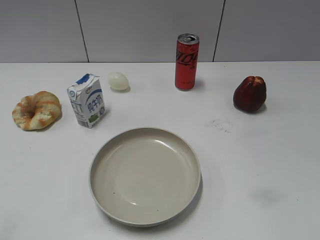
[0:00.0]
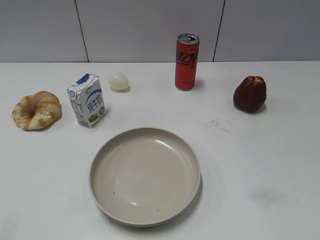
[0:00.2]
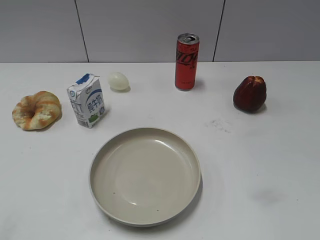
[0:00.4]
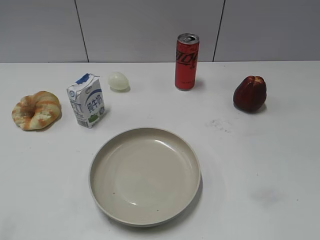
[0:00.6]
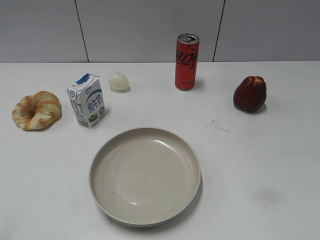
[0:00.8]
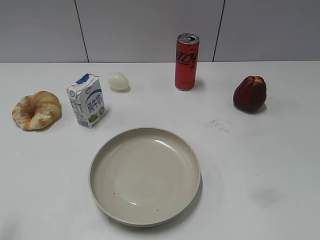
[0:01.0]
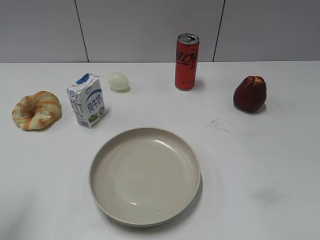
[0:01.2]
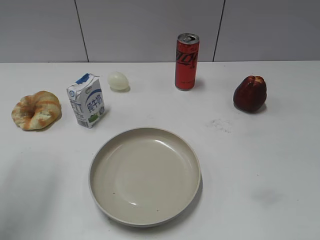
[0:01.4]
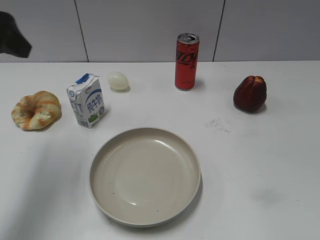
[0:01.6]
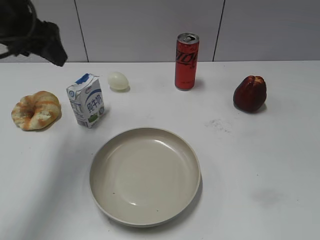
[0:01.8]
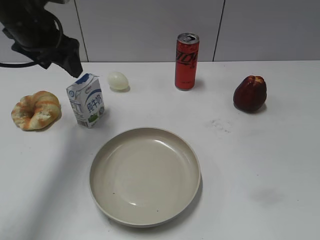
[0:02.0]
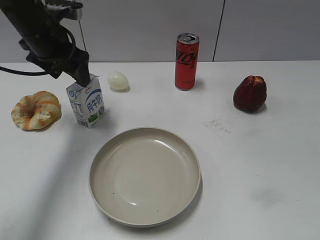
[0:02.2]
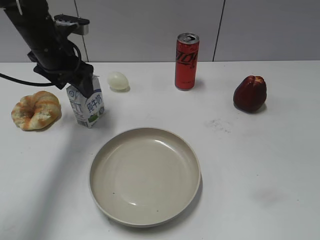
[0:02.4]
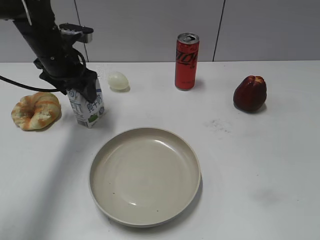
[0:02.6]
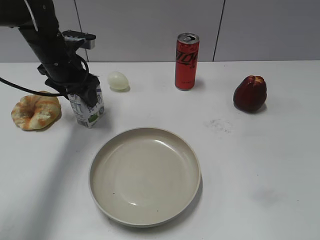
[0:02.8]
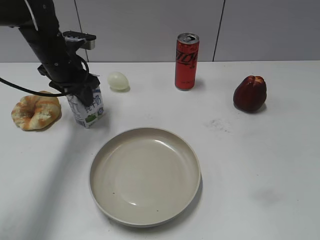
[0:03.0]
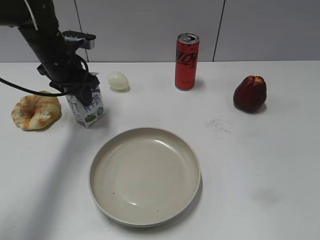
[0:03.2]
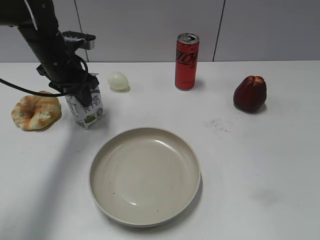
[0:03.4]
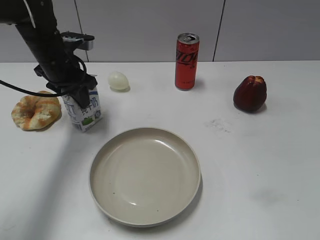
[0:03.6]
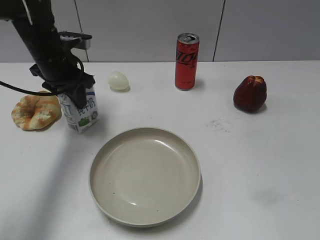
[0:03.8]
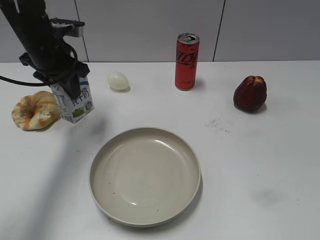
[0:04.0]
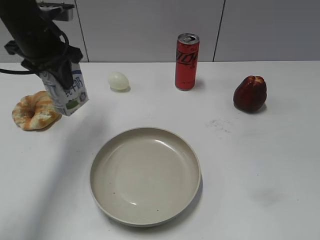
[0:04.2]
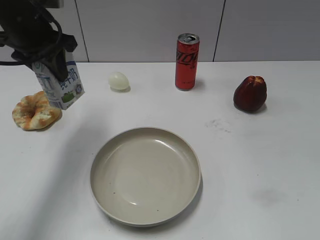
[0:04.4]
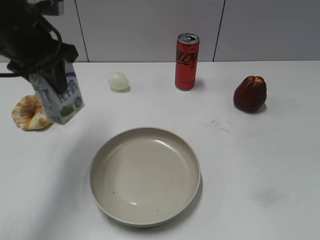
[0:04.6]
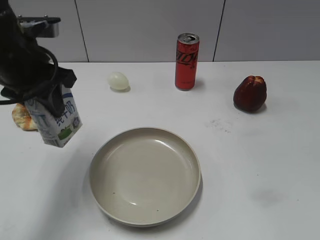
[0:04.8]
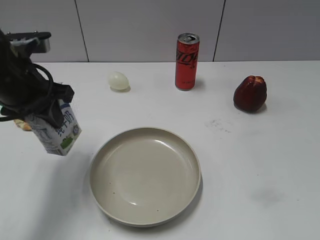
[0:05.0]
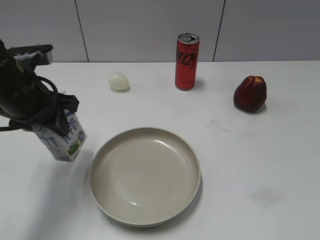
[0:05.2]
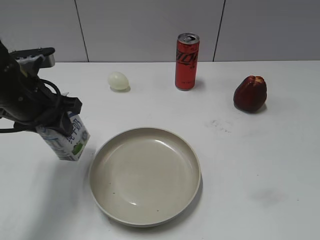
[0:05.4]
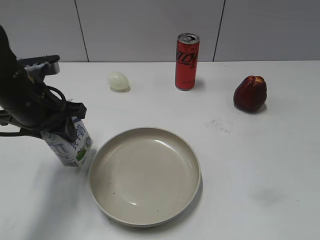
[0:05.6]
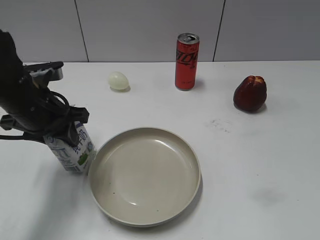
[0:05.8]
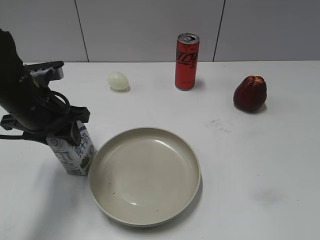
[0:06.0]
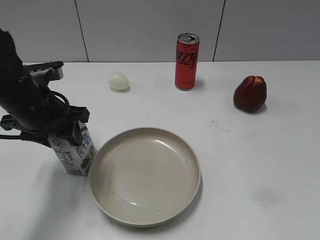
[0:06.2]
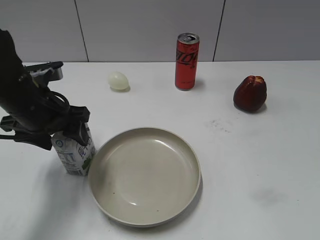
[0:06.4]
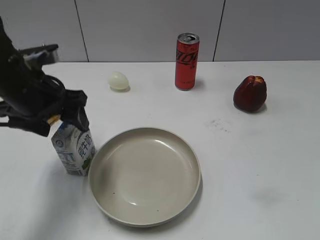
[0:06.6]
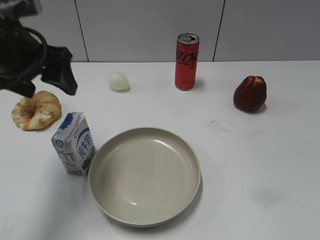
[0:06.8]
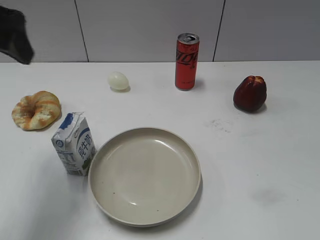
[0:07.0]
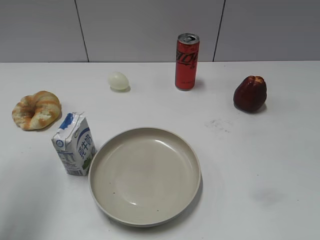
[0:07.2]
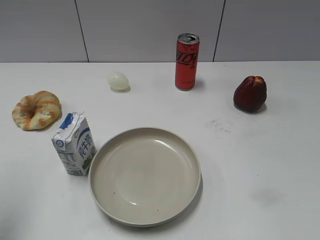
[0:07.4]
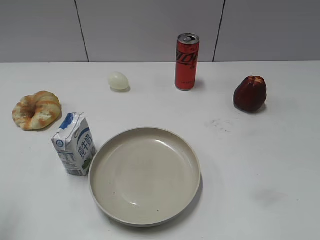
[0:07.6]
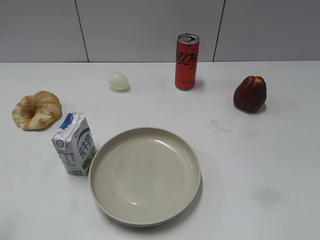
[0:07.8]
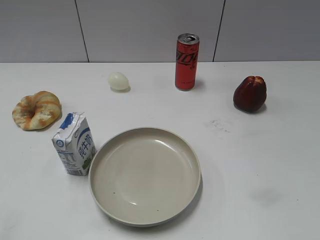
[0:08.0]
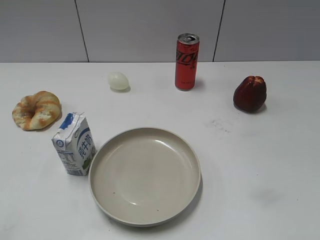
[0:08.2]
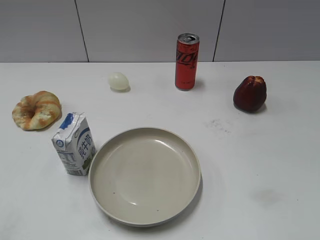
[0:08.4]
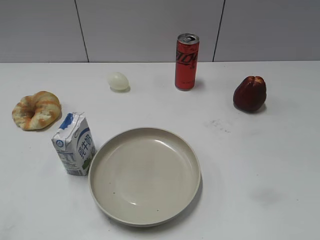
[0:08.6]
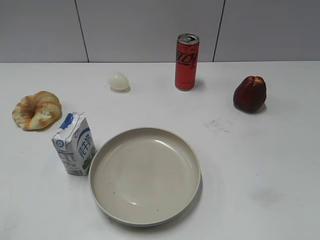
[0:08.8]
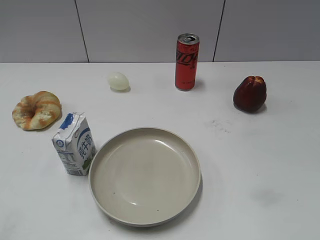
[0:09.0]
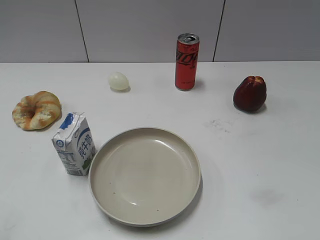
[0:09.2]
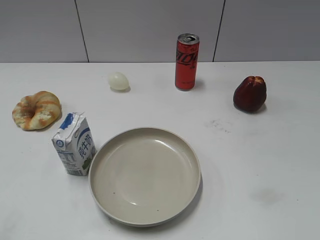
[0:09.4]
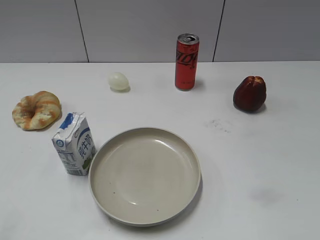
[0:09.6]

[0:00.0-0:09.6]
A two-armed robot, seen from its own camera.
Step, 0:00.6 to 0:03.4: Grasp the milk with left gripper.
Step, 0:03.6 to 0:06.6: Place the milk on the table with left gripper.
0:01.6 to 0:03.2: The left gripper goes approximately 25 cm forward, downward and to the right, and closes.
0:03.2 to 0:04.8: The left gripper travels backward and upward by roughly 15 cm.
0:04.8 to 0:06.4: The left gripper heads downward, covering roughly 10 cm, and opens its fingers.
0:06.4 to 0:08.0: The left gripper goes about 30 cm backward, to the left and upward.

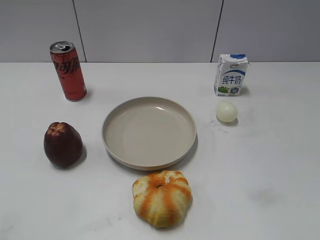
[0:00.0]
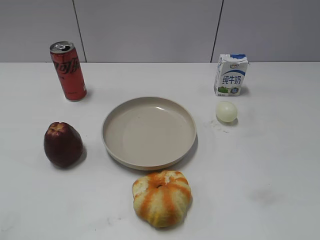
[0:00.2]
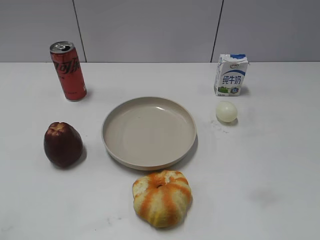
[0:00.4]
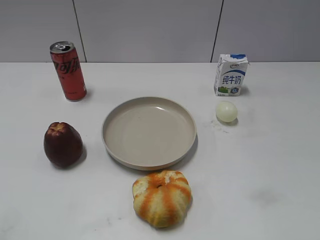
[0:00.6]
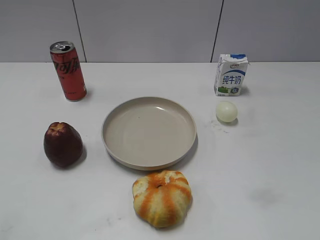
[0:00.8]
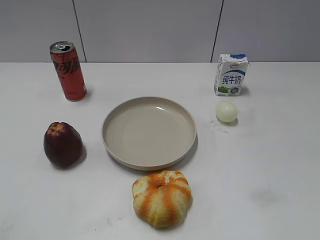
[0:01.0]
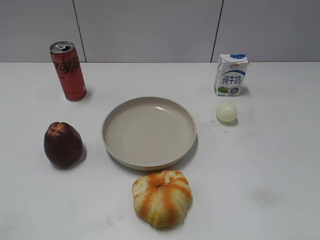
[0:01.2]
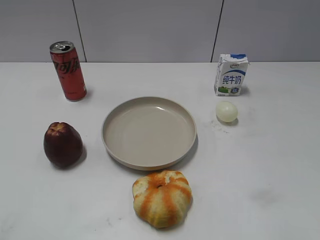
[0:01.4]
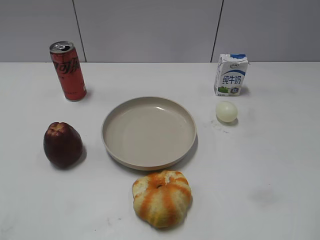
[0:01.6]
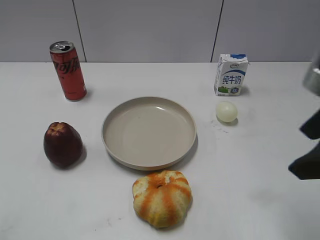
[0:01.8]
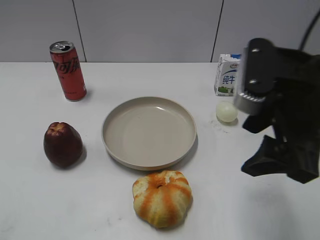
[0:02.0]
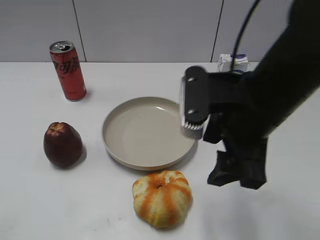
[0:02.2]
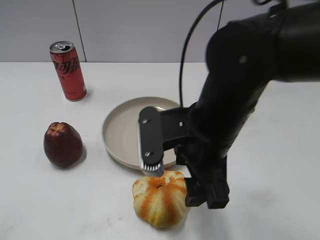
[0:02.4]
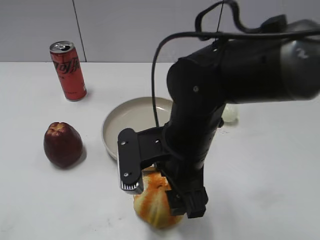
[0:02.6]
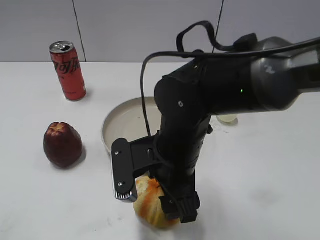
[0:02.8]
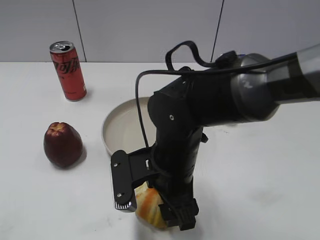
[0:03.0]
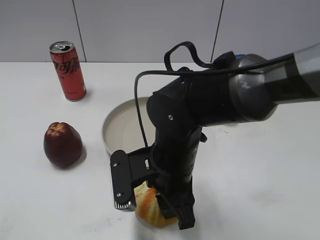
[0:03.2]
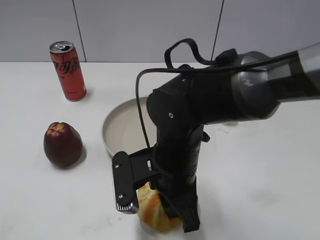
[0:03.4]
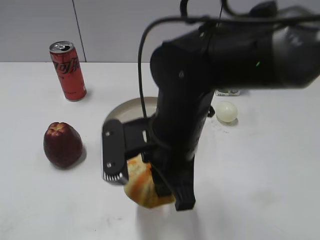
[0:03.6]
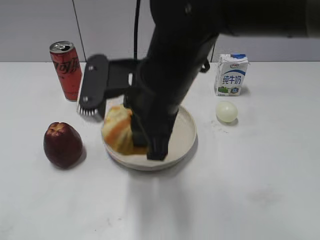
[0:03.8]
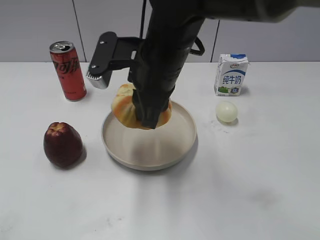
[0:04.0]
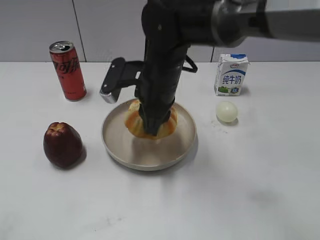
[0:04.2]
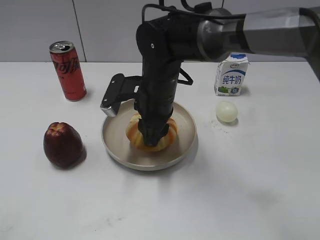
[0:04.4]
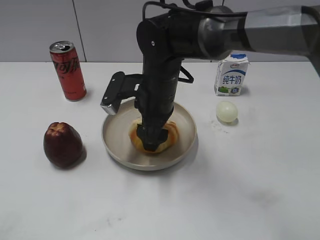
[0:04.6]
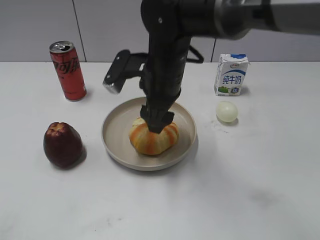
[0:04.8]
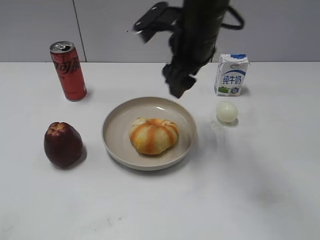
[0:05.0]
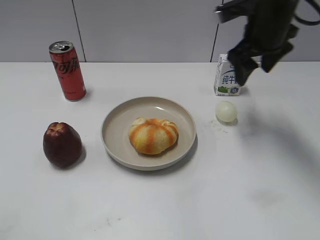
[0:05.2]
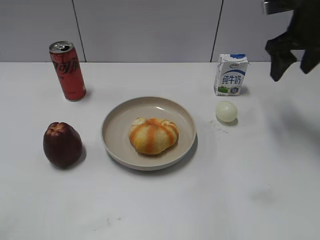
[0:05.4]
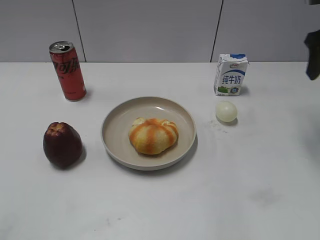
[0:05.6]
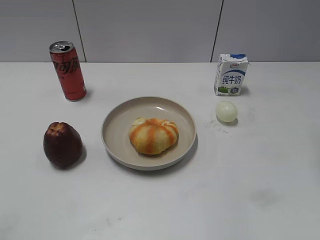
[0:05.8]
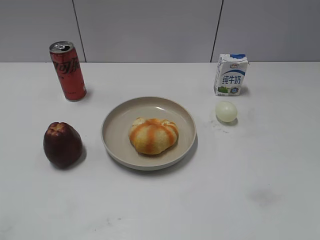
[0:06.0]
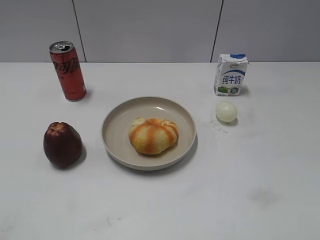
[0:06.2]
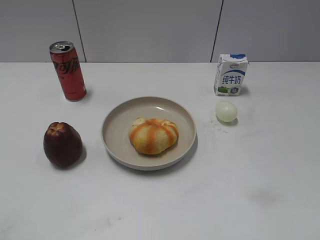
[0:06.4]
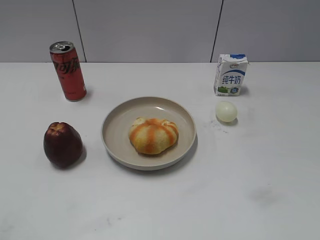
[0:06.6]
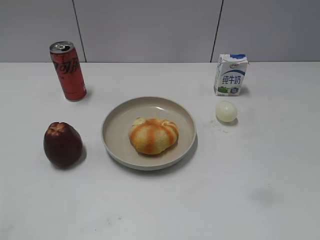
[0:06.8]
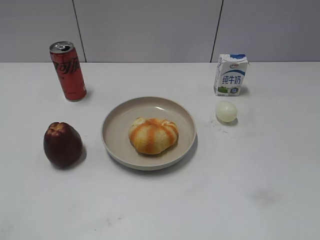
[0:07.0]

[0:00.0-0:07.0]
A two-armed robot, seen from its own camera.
Step, 0:01.0 to 0:03.2: Grasp the round bread with right gripper.
Step, 0:03.4 to 0:04.8: Place the round bread on the plate with right gripper.
0:01.4 to 0:02.8: The right gripper shifts about 30 cm to the left, downward and forward.
0:02.8 to 0:04.2: The right gripper heads forward, covering approximately 10 cm, goes upward and returns, some 10 cm each way, and closes.
0:04.2 to 0:05.6: The right gripper travels to the right and upward by some 30 cm, and opens.
0:05.6 to 0:07.0: The right gripper shifts some 35 cm backward.
